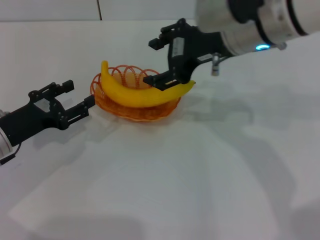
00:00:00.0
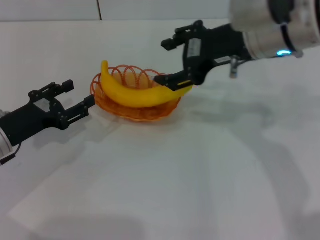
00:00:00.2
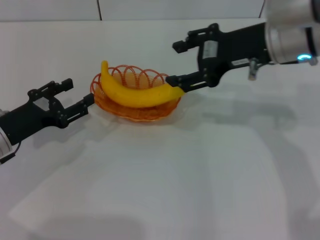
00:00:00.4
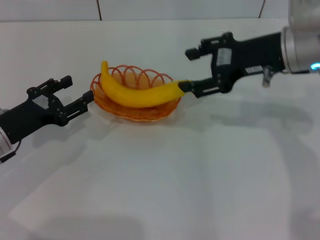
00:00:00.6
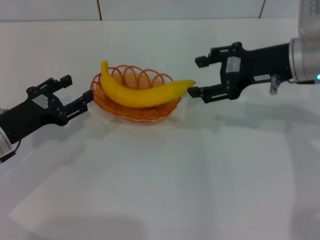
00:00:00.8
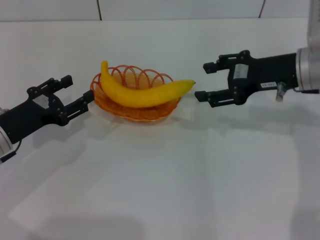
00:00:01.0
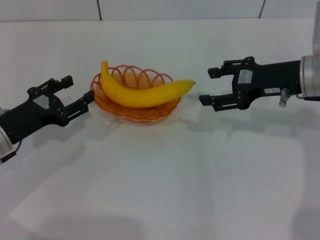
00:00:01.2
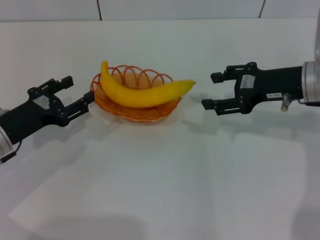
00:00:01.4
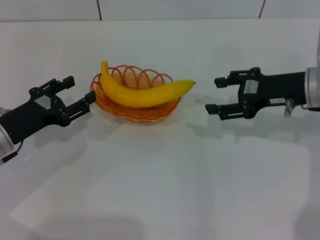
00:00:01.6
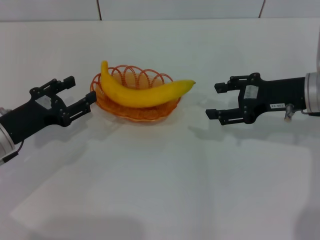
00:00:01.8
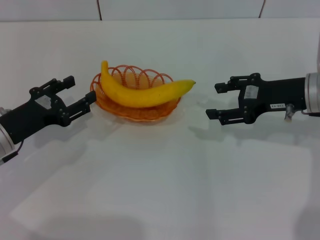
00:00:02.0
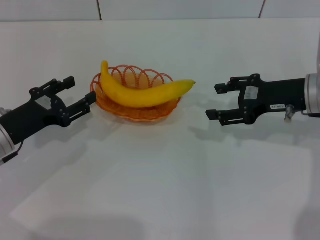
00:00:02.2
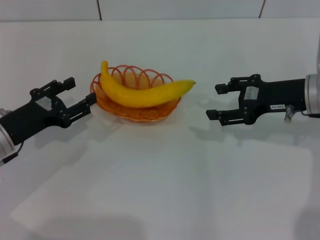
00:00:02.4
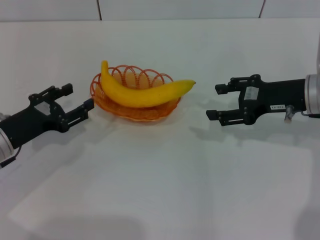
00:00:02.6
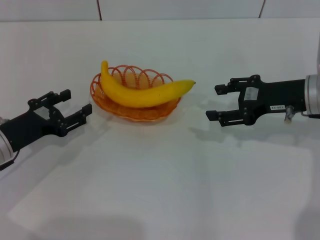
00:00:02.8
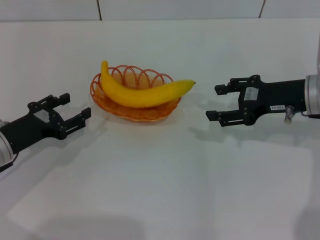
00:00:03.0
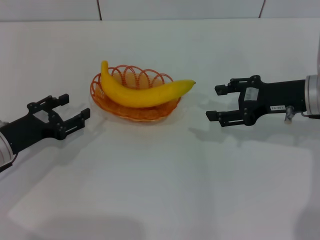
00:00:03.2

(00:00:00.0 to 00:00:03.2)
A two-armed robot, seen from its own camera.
00:00:00.0 - 00:00:01.6: The right gripper travels to the right and downward by some 15 cm.
00:00:01.6 - 00:00:03.2: The grippers move only a little.
